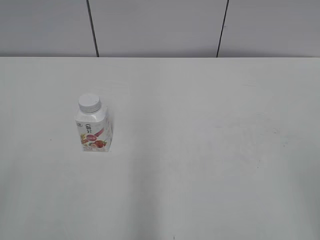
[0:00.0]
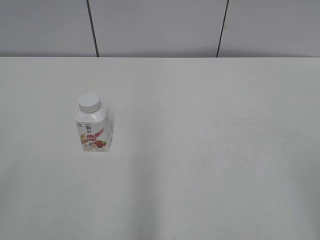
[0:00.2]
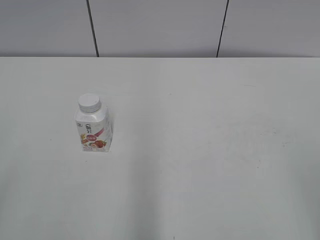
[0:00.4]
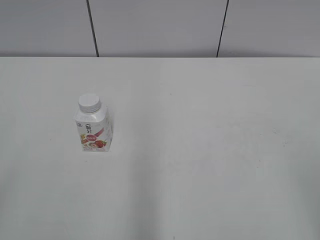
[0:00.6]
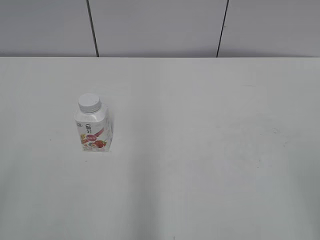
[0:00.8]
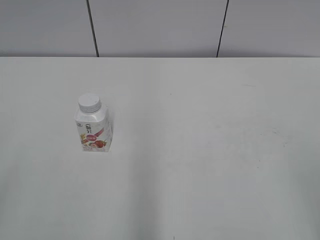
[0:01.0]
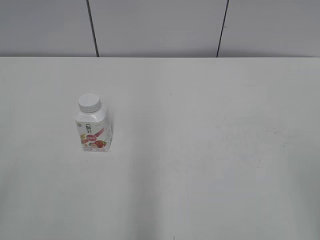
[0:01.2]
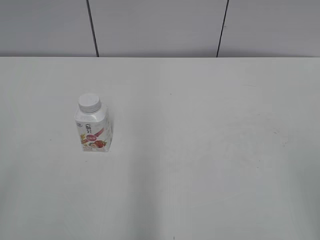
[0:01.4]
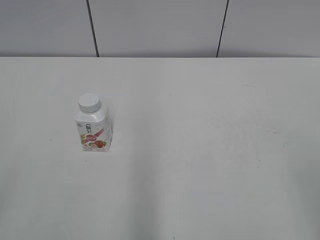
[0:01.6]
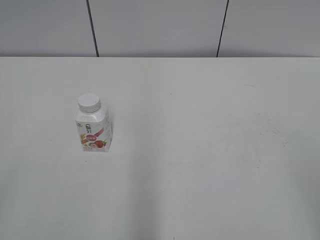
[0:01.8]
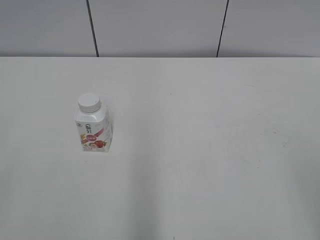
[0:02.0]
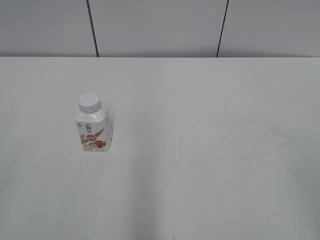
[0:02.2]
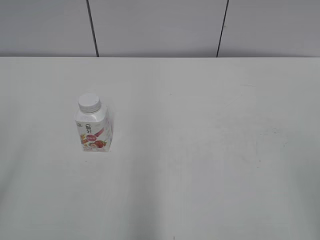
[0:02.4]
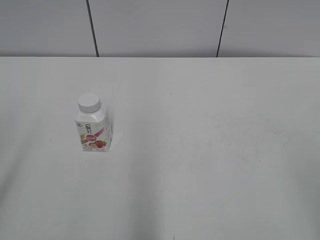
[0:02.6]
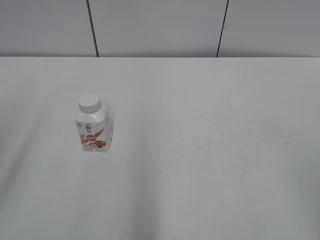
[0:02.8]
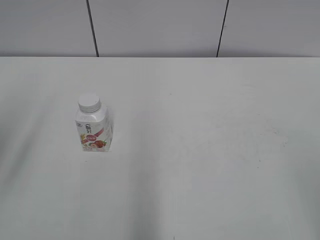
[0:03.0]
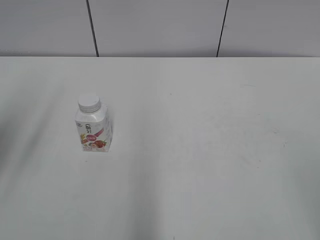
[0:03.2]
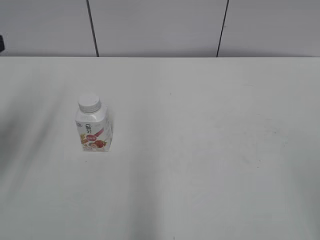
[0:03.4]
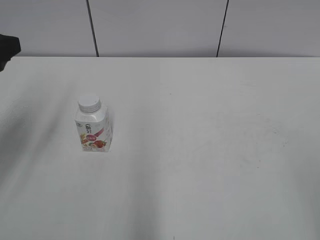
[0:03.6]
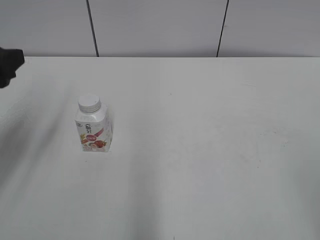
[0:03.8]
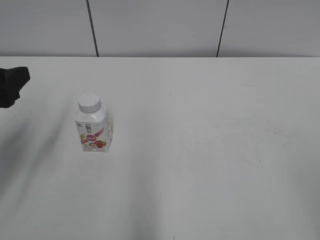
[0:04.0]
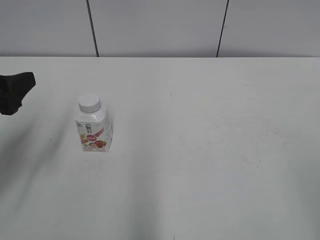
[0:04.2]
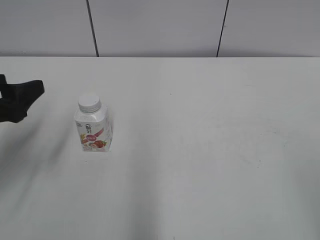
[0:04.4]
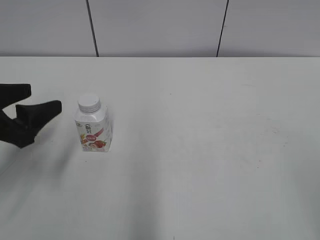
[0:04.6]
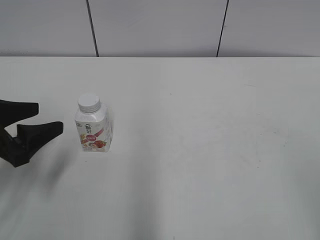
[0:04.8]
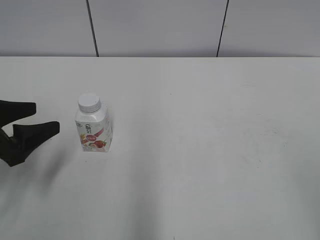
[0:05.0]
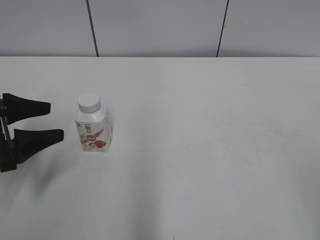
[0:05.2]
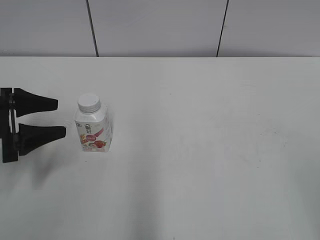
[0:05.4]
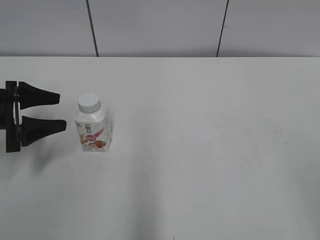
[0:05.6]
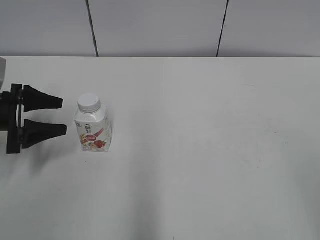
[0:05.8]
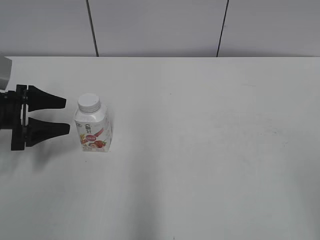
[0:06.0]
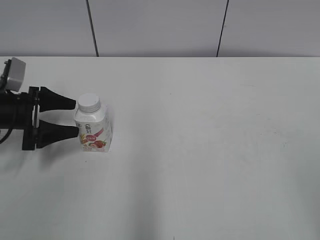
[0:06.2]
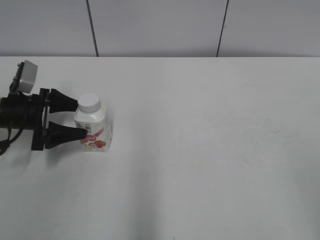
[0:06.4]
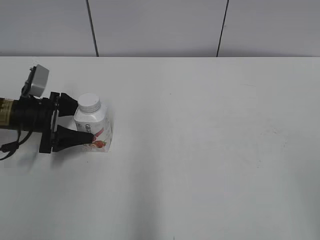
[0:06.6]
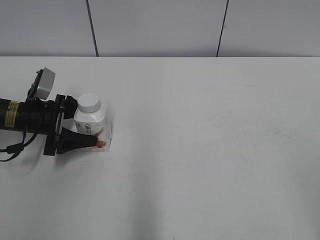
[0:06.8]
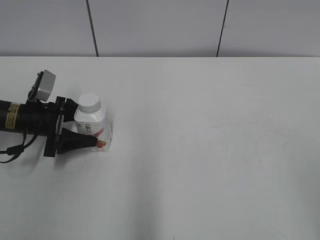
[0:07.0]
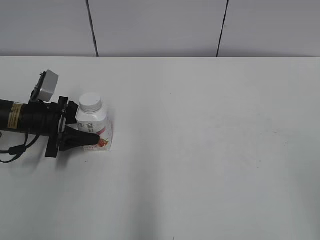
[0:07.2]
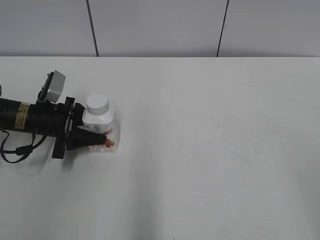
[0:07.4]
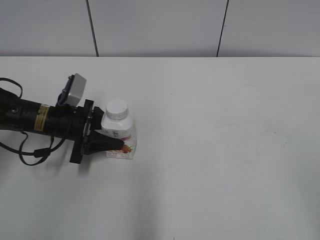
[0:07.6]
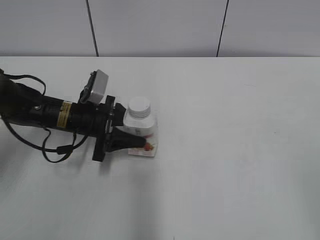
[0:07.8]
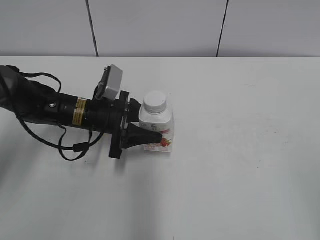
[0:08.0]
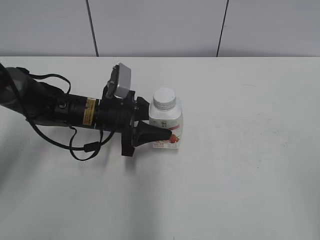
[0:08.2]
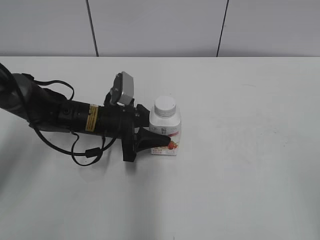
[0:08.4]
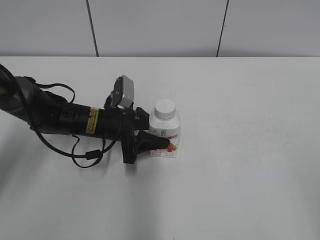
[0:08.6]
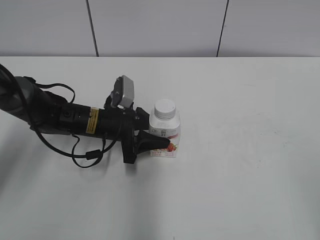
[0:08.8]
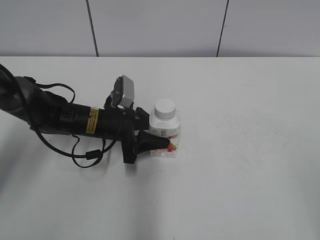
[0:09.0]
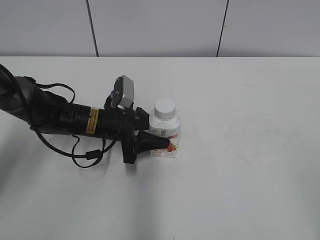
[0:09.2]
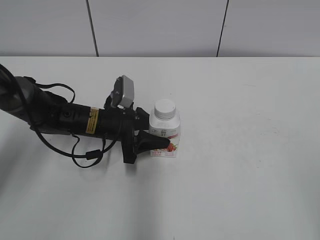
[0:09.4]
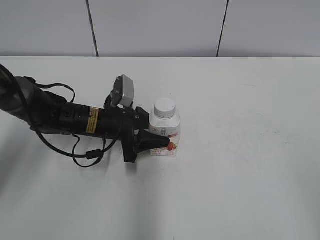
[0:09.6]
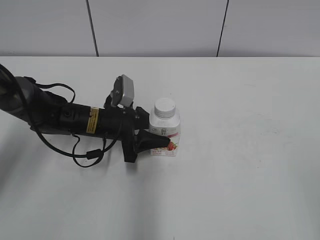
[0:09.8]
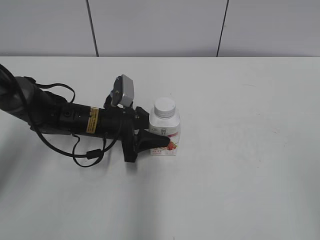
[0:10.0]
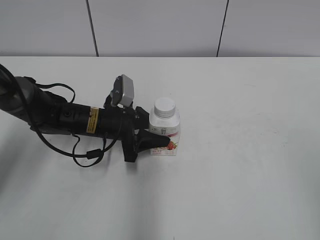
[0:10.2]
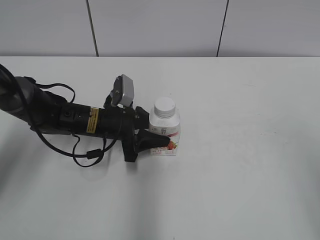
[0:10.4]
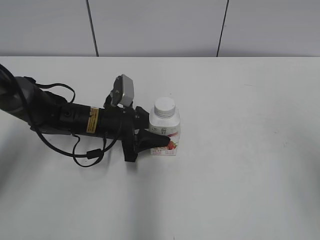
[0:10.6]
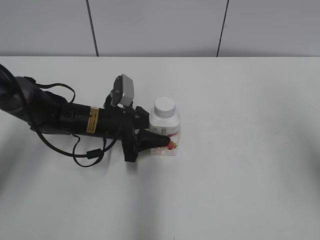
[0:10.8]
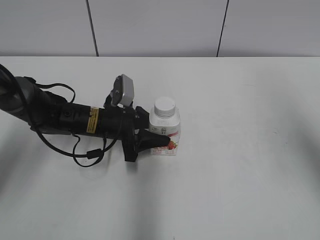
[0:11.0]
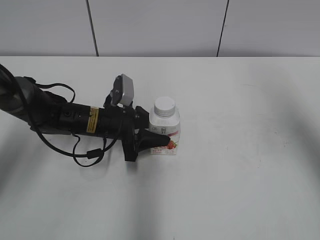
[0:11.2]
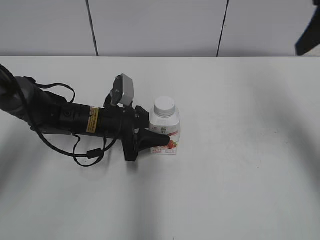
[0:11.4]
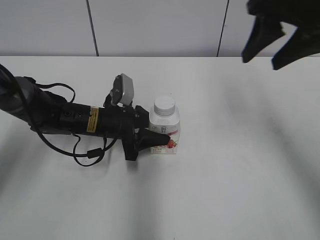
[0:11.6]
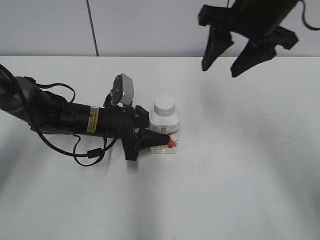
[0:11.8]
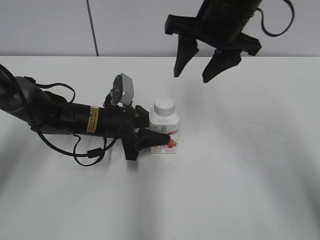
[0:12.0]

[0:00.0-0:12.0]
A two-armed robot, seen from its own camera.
Step, 0:00.0 to 0:07.2: Grab the Yili Changqing with the left hand.
Step, 0:07.4 to 0:09.0: Move the Yili Changqing from left to right.
0:03.0 to 0:04.4: The left gripper shifts about 15 cm downward and forward.
0:04.4 to 0:06.0: The left gripper travels forward and downward by approximately 15 cm.
0:06.0 to 0:07.6: The left gripper goes some 10 cm to the right, and closes.
0:07.6 to 0:09.0: The left gripper shifts some 10 cm to the right.
0:09.0 to 0:10.4: The right gripper goes approximately 5 cm forward and upward.
0:10.4 to 0:12.0: The right gripper is displaced forward and to the left by approximately 35 cm.

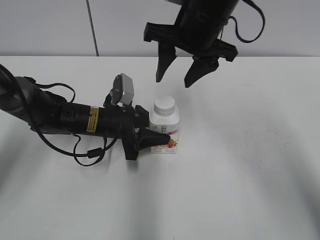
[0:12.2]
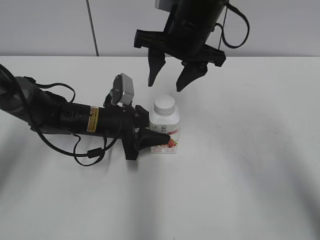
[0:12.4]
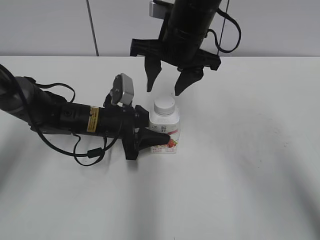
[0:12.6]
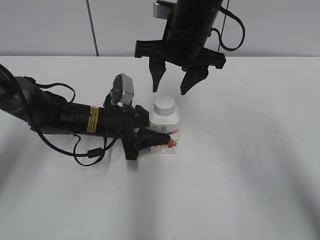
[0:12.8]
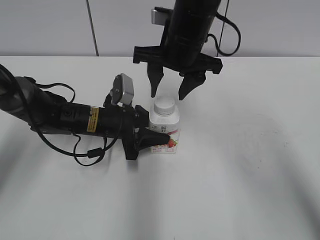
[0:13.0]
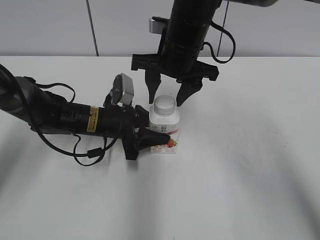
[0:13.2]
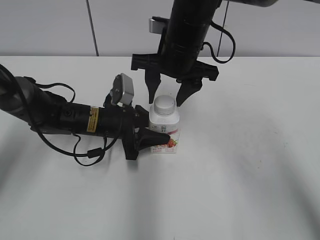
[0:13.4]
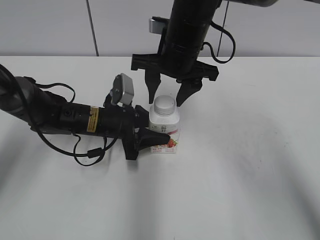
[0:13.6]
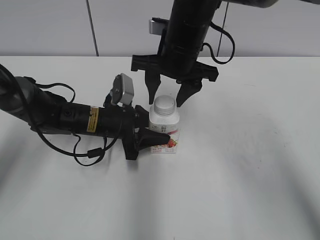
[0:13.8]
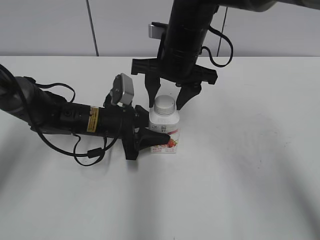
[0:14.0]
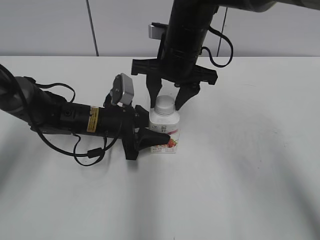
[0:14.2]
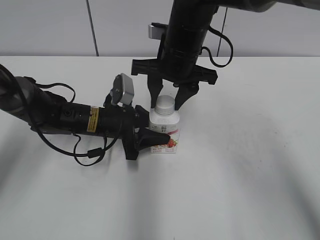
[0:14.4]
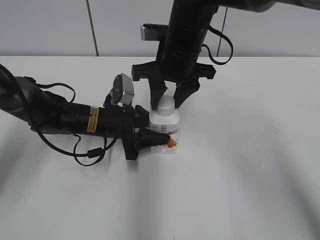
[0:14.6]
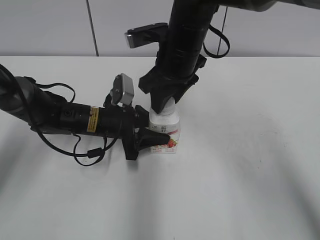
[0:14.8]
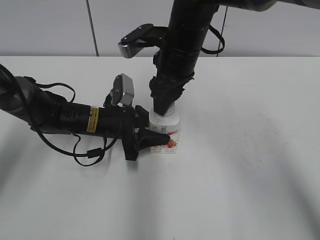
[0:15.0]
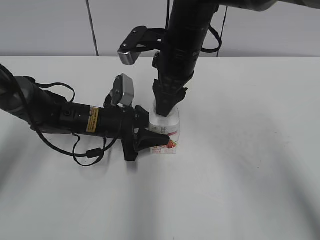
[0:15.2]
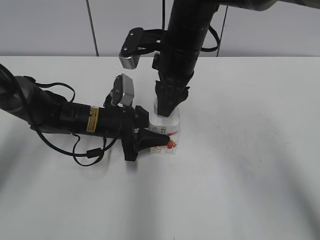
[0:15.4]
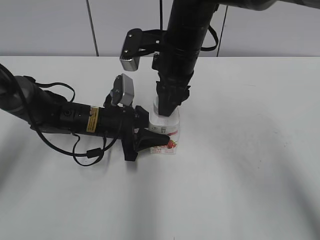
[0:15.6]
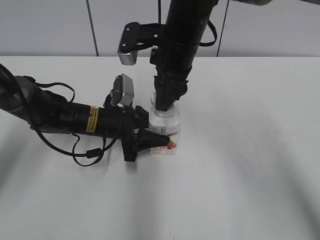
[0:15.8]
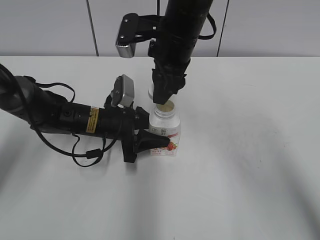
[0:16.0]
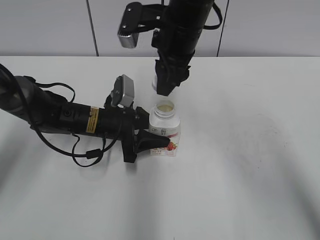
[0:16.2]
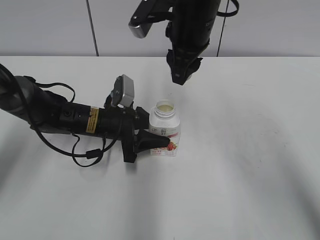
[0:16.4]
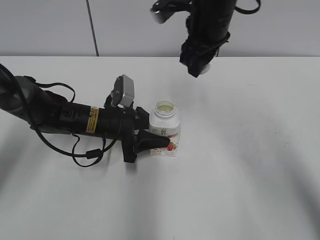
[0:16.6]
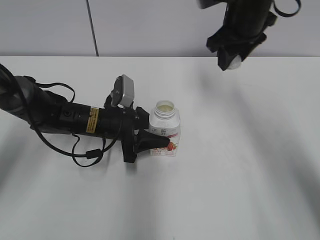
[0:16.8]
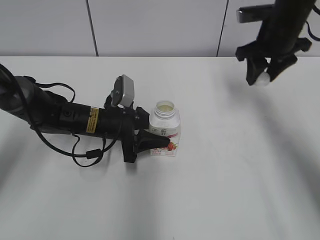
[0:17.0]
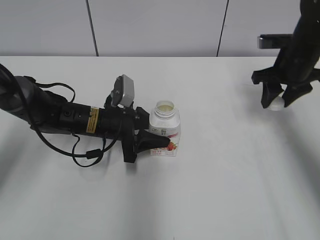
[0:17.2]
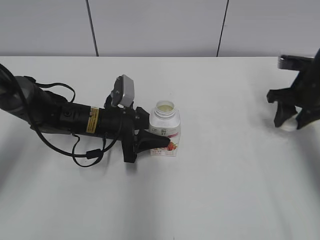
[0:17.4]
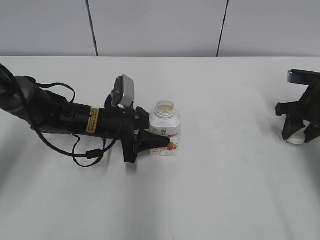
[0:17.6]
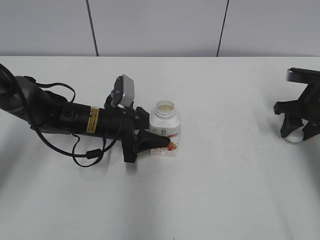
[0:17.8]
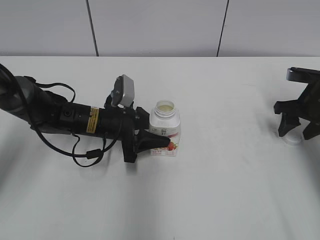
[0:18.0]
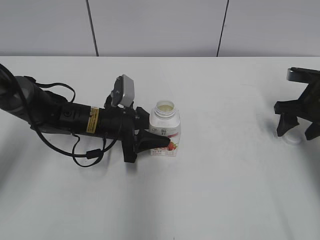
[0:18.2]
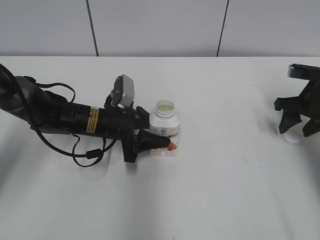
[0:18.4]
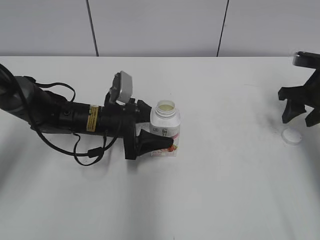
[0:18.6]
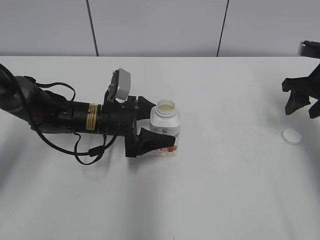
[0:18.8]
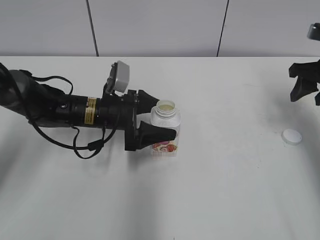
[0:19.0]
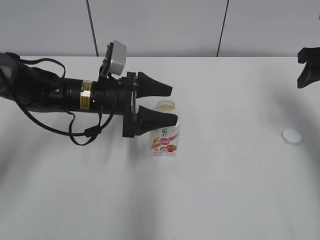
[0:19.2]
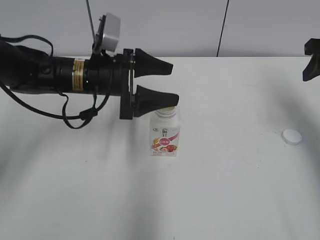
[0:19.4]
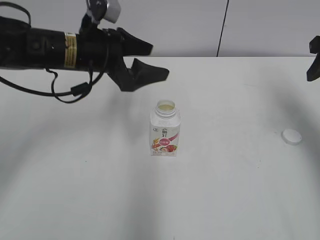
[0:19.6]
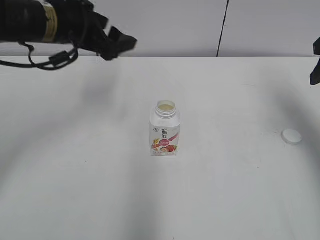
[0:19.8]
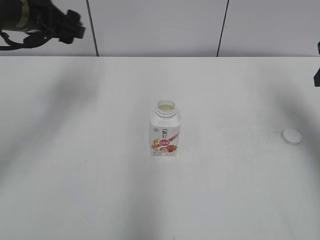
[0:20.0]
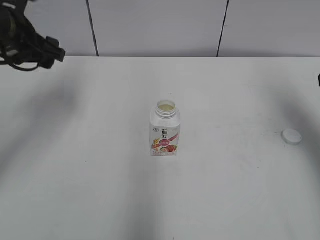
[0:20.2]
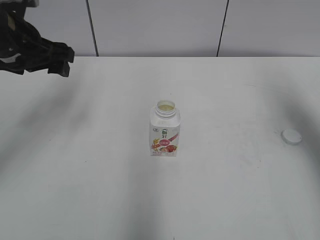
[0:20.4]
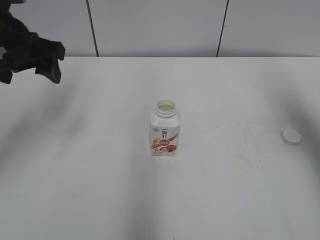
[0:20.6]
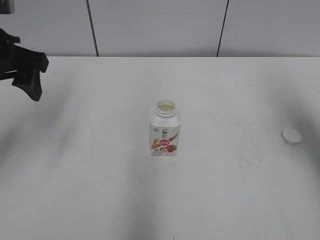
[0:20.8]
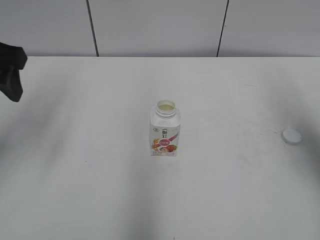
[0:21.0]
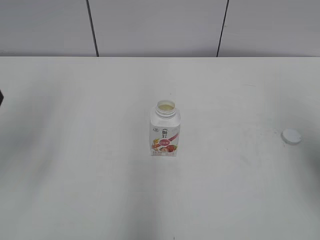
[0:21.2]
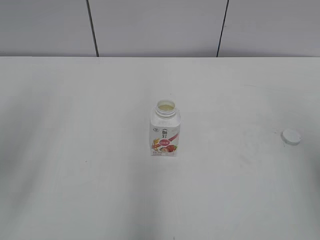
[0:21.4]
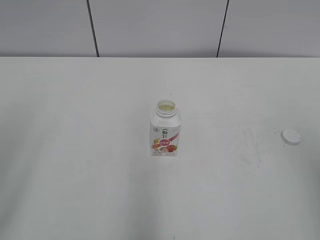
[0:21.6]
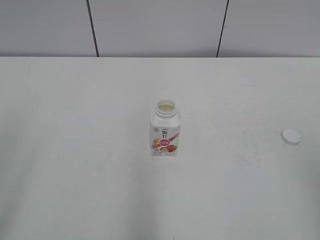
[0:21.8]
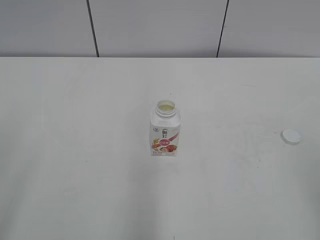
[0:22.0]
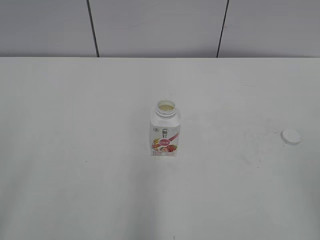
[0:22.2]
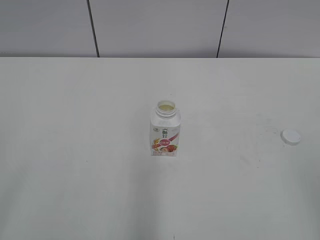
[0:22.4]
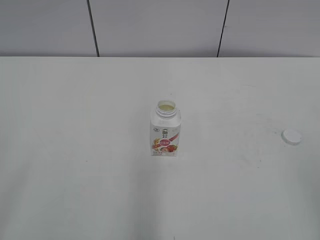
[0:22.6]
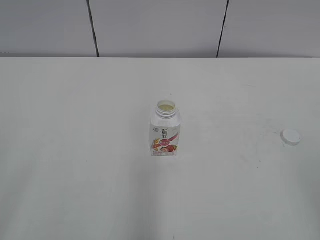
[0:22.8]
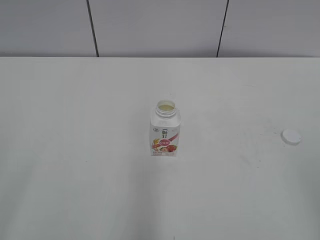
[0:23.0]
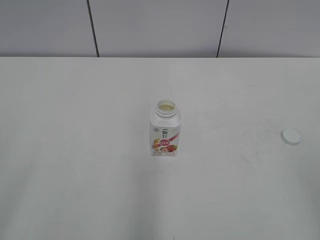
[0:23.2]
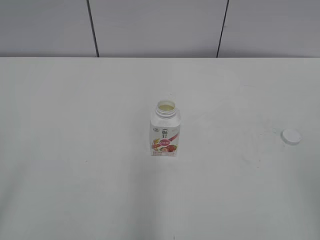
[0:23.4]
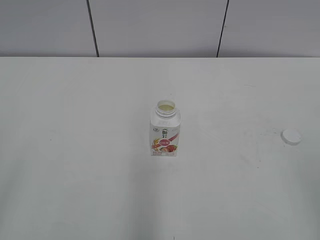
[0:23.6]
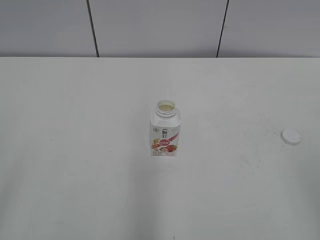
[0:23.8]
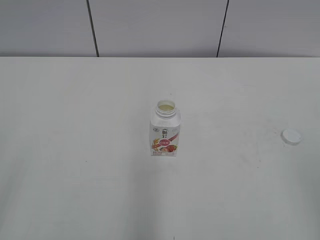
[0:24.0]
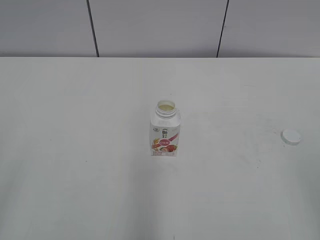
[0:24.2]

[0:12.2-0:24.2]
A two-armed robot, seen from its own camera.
Step, 0:16.0 to 0:18.0: Place the bottle cap on the right.
0:12.2 to 0:13.8: The right gripper goes about 5 cm downward.
0:13.8 to 0:15.2: The right gripper closes its fingers.
0:15.2 to 0:16.6: The right gripper moves roughly 5 cm.
0:16.6 to 0:18.2: The right gripper goes about 25 cm to the right and downward, and opens its fingers.
0:18.2 to 0:19.8: Both grippers travel together upward, some 15 cm. The left gripper opens its fingers.
0:19.8 to 0:21.2: The left gripper is displaced backward, to the left and upward by approximately 20 cm. Meanwhile the right gripper moves backward, about 15 cm.
0:21.2 to 0:22.6: The two grippers go approximately 20 cm backward.
